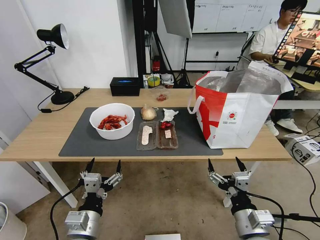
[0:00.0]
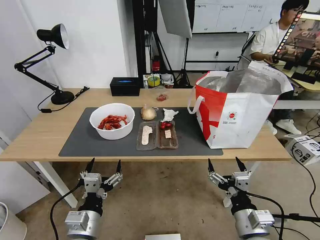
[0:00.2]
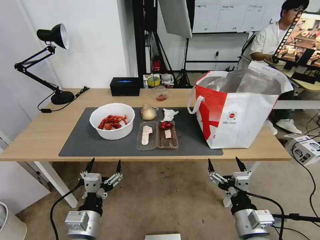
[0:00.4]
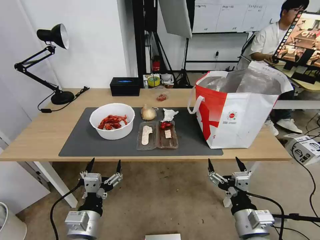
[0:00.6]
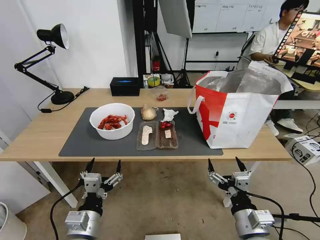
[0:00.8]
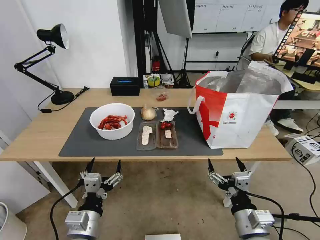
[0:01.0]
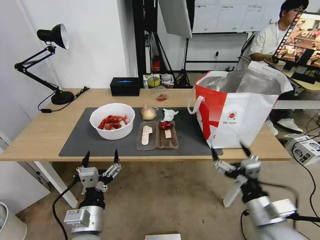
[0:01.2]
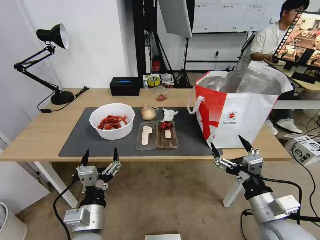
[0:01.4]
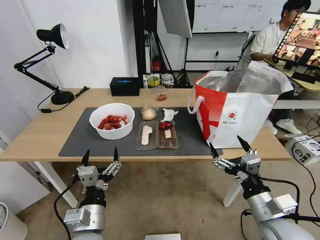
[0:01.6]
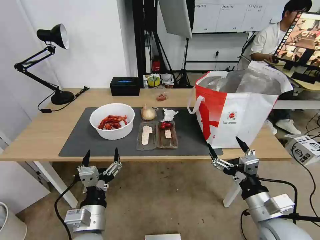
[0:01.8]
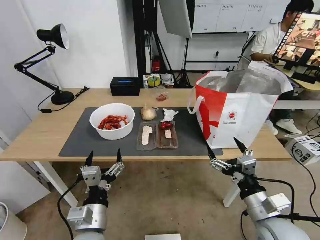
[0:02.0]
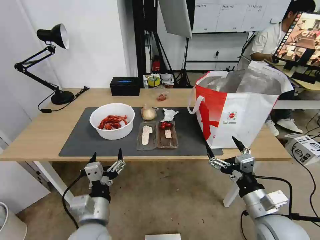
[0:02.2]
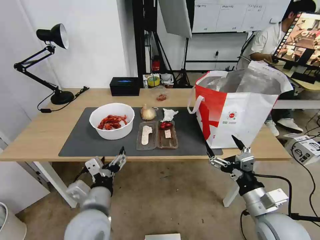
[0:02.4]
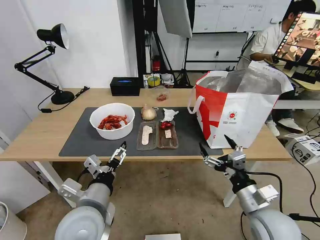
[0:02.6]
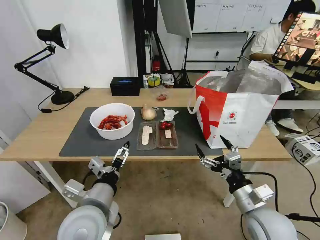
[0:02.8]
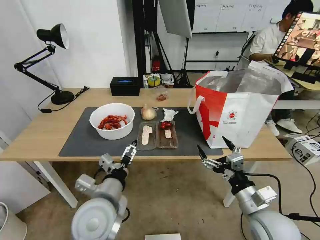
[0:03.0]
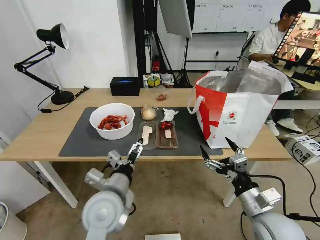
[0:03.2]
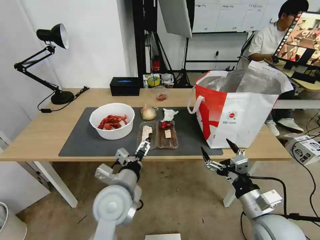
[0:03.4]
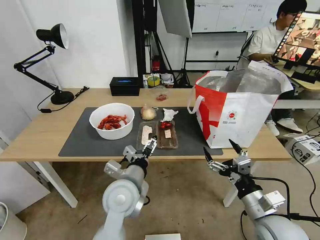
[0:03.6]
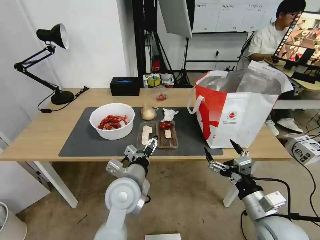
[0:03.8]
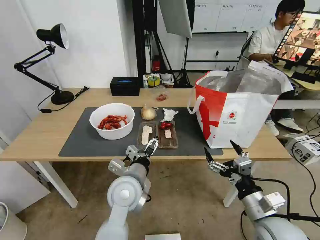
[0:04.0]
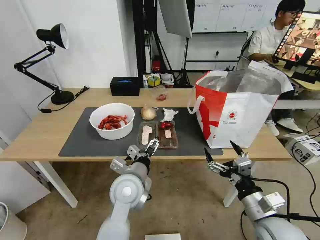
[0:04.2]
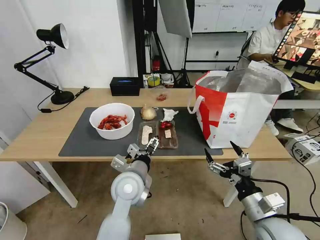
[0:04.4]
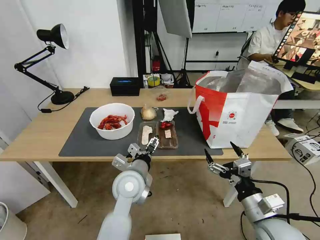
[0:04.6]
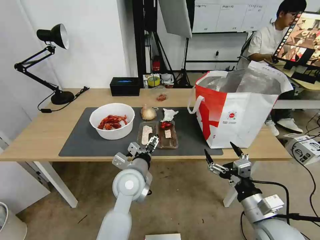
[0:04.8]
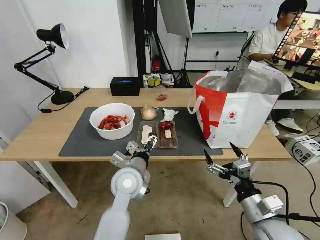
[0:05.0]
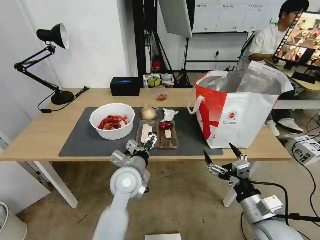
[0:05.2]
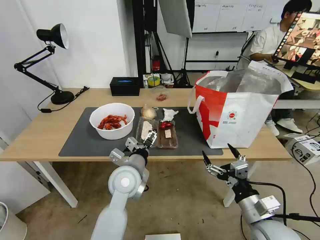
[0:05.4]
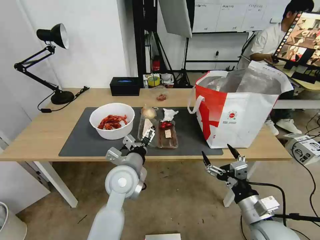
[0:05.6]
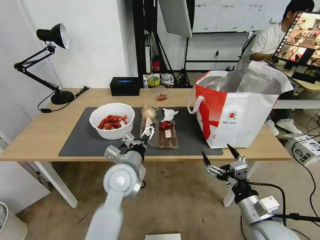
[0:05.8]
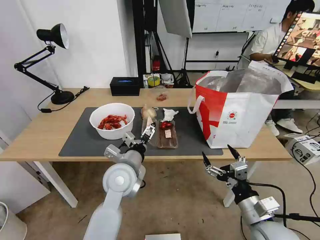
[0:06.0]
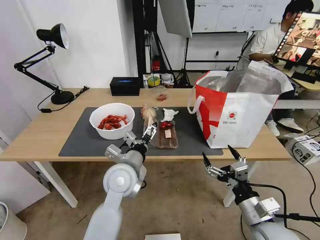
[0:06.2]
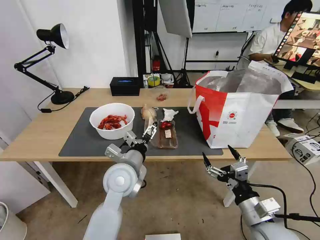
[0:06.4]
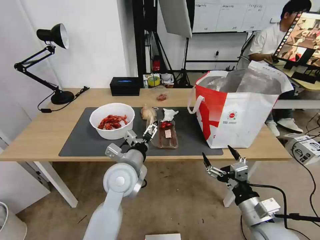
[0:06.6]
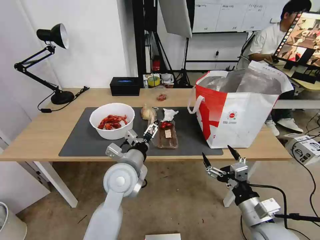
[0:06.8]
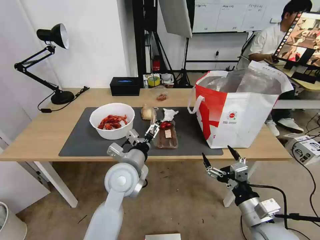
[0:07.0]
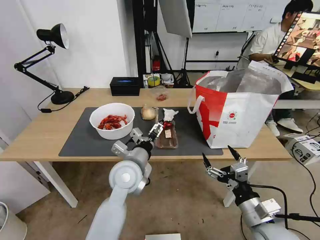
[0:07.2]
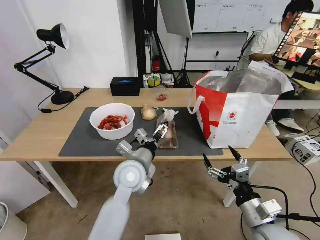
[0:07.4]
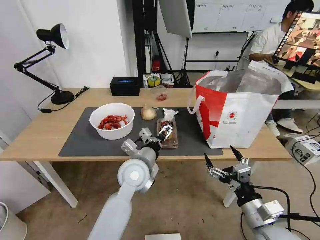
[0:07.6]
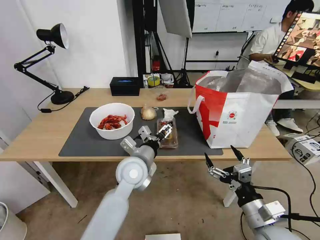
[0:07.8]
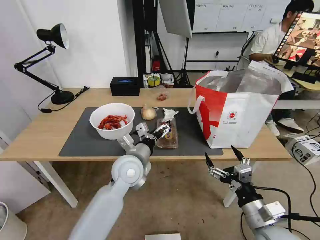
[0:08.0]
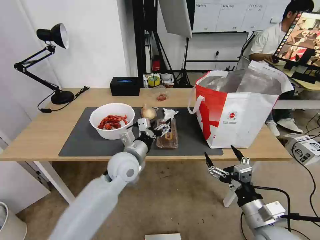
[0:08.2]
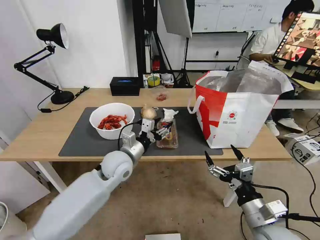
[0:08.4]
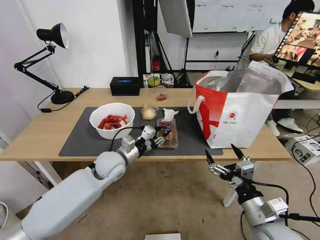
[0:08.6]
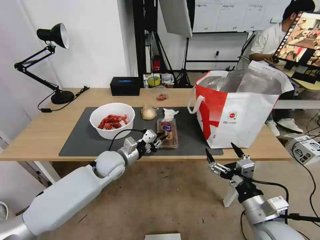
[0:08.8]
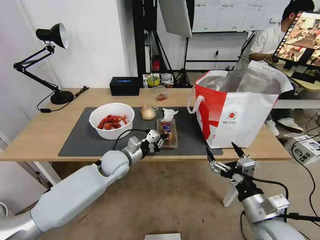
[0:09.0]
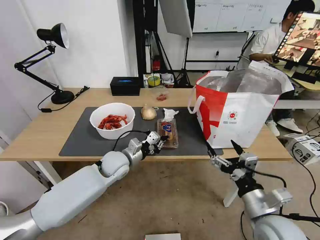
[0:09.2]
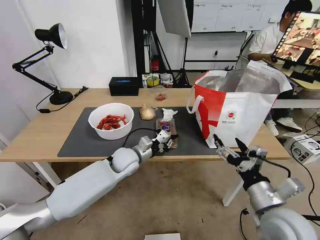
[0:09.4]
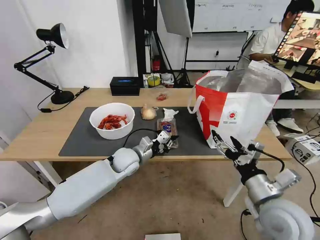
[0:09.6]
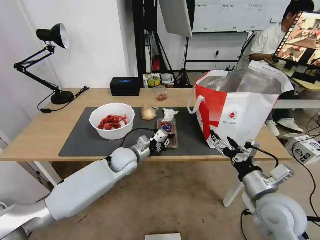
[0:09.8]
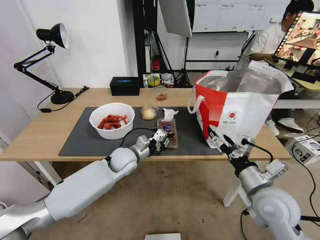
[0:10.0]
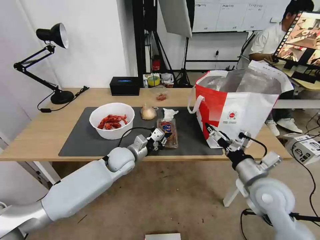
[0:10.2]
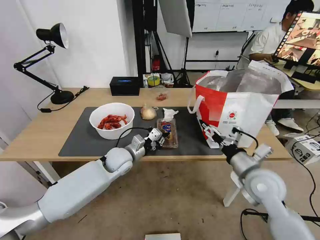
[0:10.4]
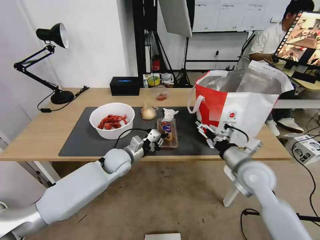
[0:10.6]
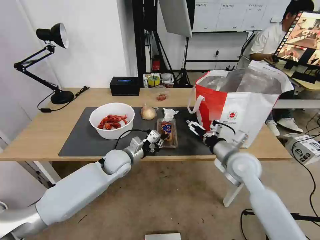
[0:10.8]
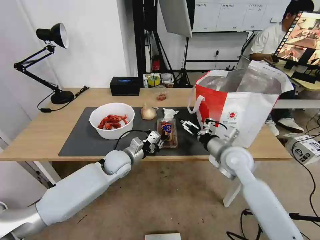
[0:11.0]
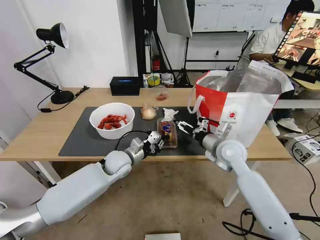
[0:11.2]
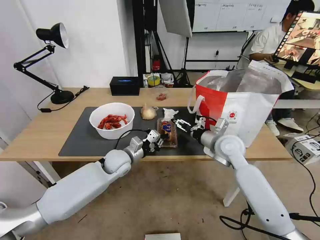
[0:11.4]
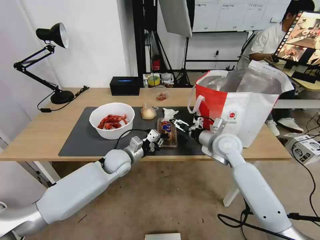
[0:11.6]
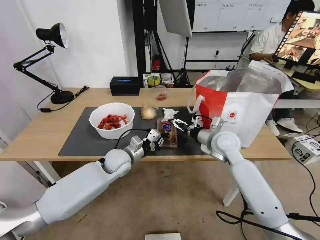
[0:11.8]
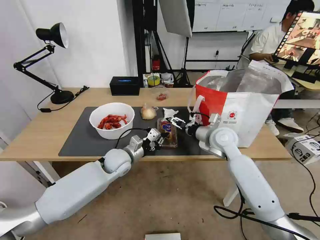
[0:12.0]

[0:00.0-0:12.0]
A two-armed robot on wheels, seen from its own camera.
Task of the whole recording: Pick up the trash from the table and place it into the takeout bag.
0:01.6 to 0:03.0: The left gripper heads upward and forward, covering approximately 10 cm.
0:03.0 to 0:04.4: The left gripper moves forward and to the right, about 10 cm.
0:04.4 to 0:07.6: The grippers stay close to where they were, moving slightly.
0:07.6 to 0:09.0: The left gripper travels to the left, forward and downward by some 10 cm, and closes its fingers.
0:09.0 to 0:10.4: The right gripper moves forward, approximately 10 cm.
0:10.4 to 0:12.0: The right gripper travels forward and to the left by about 20 cm.

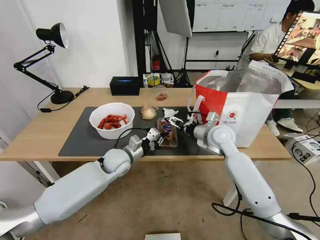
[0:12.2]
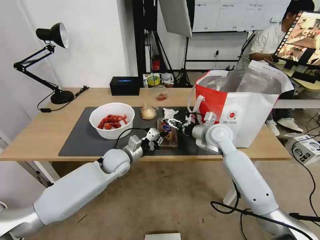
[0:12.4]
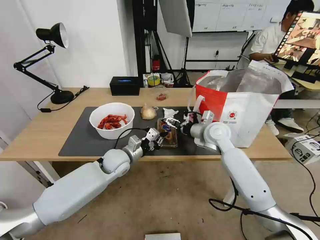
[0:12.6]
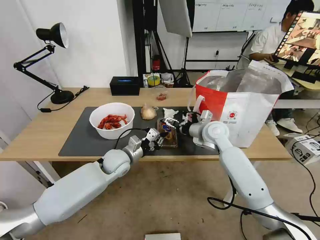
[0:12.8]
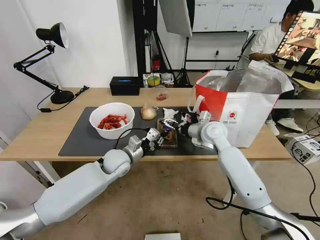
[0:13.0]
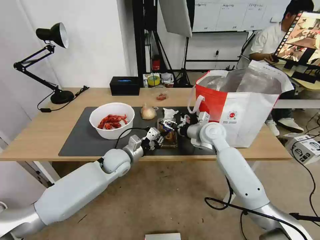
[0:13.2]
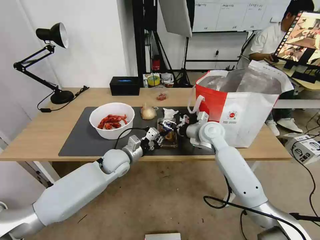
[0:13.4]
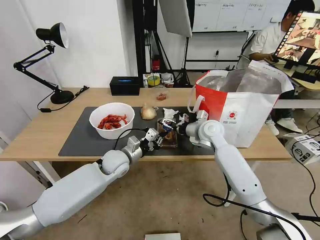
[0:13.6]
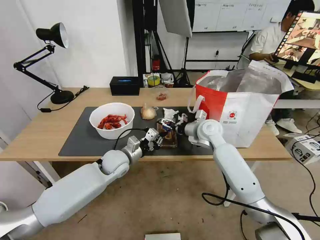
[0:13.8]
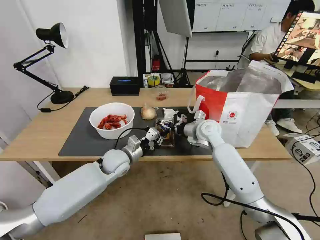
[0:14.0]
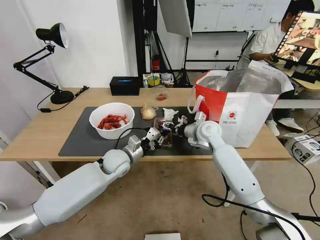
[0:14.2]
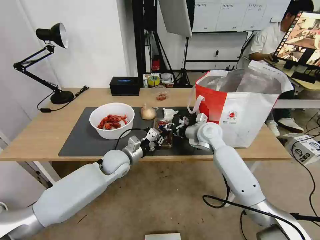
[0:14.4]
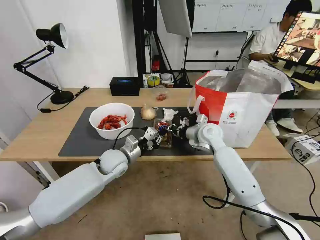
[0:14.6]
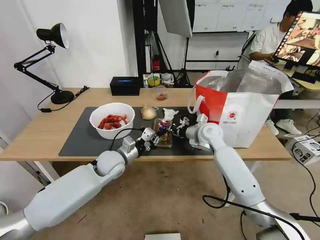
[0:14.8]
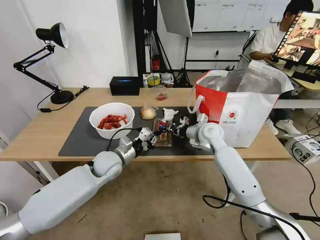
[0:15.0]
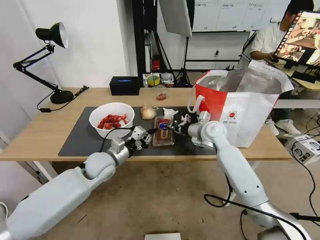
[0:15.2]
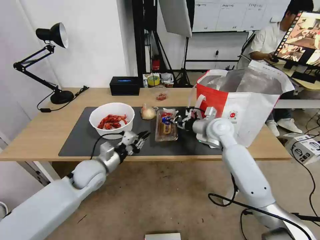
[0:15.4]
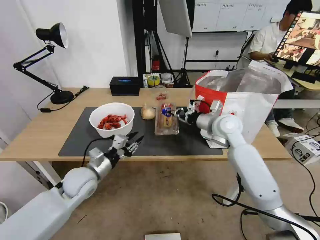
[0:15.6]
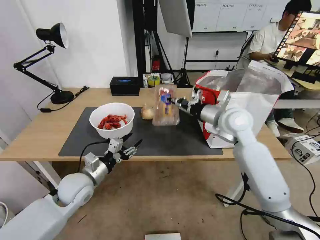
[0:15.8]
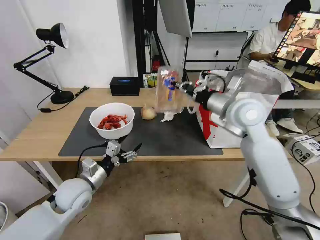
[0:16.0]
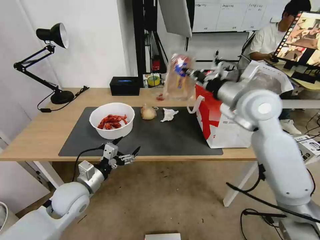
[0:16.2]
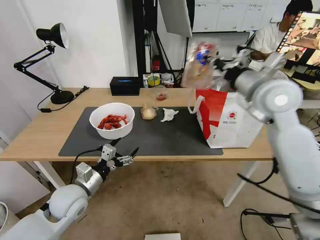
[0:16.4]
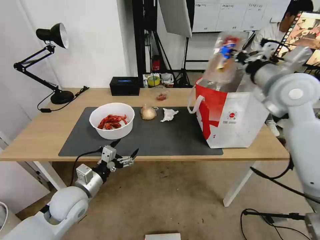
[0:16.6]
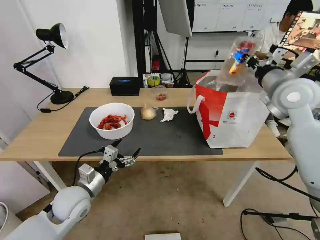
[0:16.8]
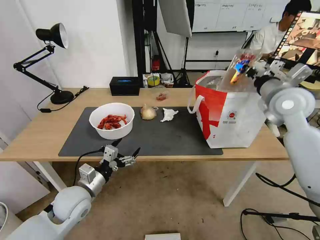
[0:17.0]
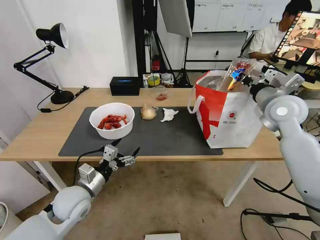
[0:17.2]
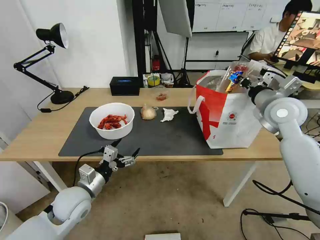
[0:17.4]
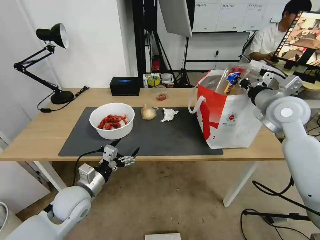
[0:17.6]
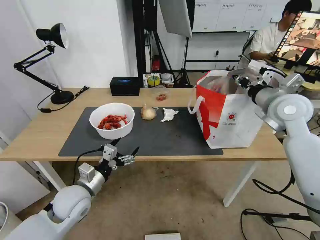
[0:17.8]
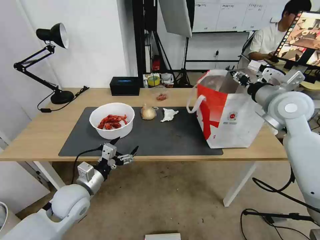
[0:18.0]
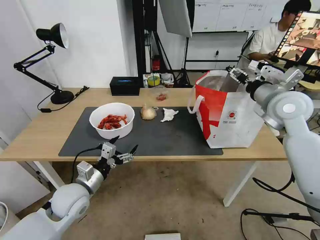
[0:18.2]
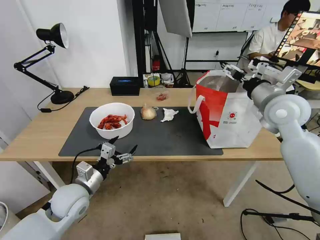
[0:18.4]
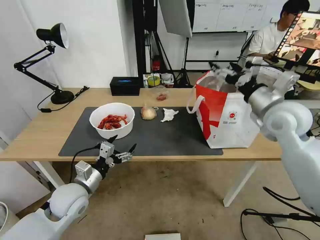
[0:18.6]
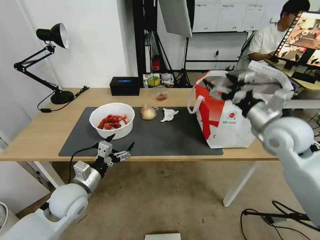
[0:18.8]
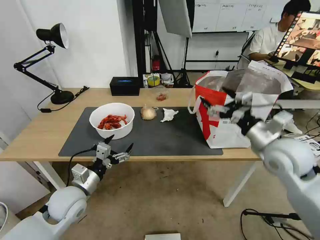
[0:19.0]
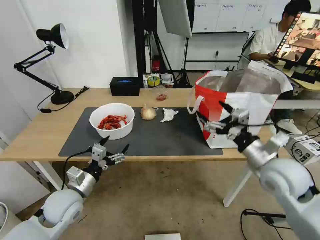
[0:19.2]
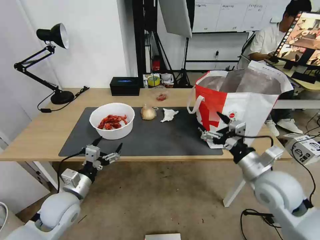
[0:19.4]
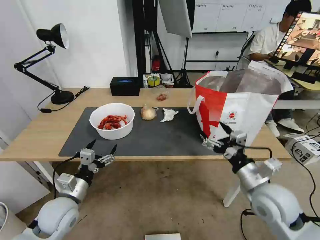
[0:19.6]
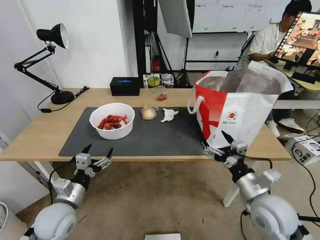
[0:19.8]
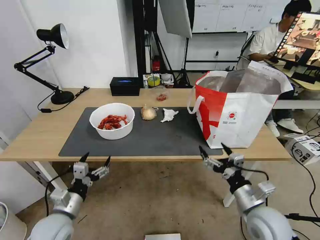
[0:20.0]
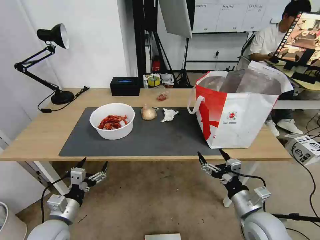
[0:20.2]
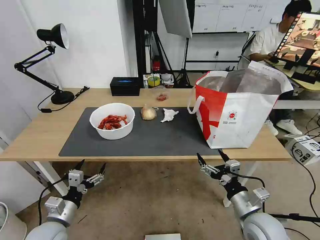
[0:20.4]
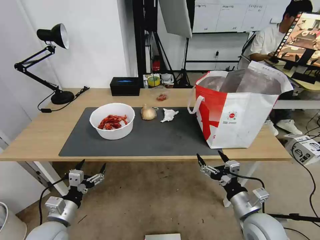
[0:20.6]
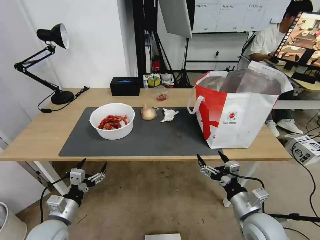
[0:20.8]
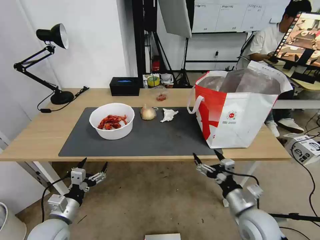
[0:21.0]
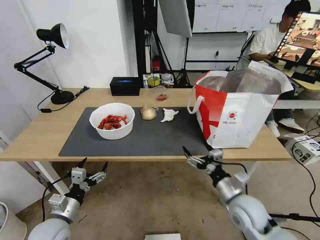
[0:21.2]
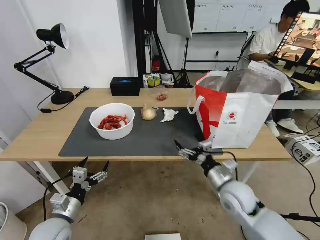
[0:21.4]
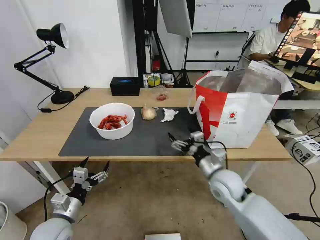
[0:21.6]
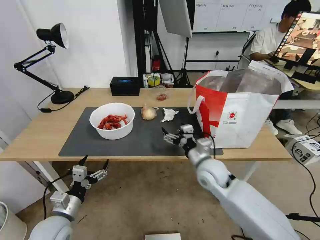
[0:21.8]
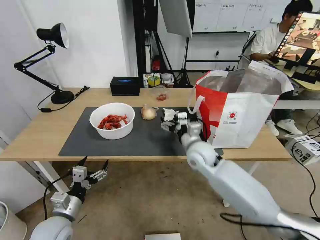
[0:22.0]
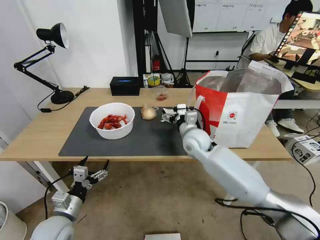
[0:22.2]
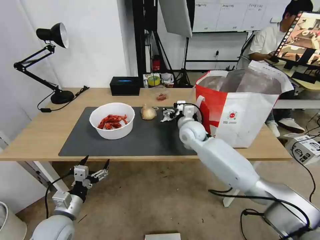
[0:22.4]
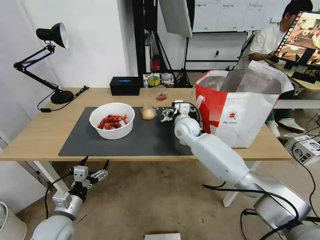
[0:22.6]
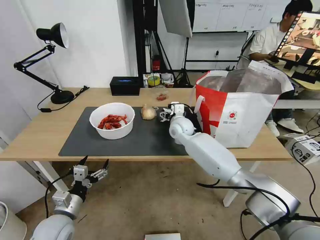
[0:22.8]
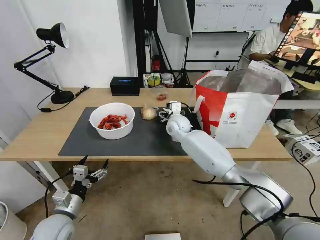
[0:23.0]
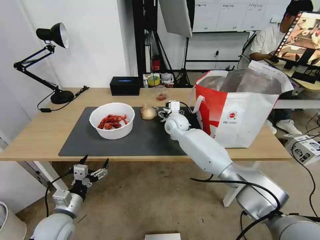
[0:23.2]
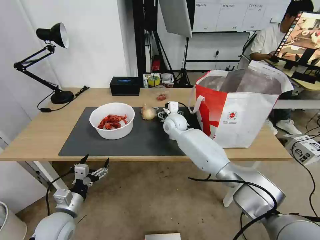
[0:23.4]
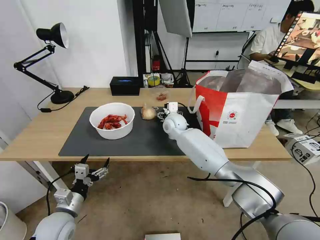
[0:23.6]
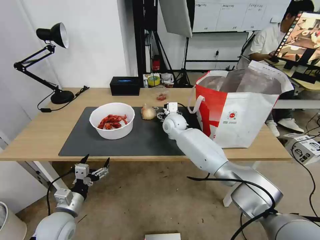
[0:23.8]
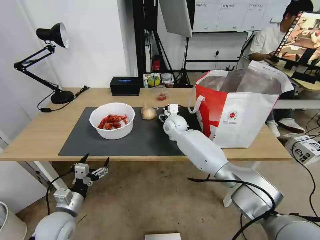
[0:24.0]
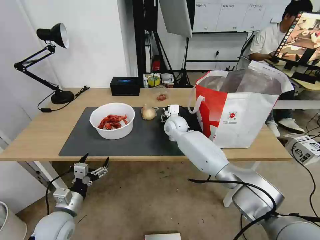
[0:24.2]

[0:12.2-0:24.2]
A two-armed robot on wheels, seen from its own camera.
Task of the whole recording: Pick up the trash from the table and place it into the takeout bag.
0:12.2 to 0:13.8: The grippers stay close to where they were, moving slightly.
0:13.8 to 0:15.2: The left gripper changes place by some 5 cm. The right gripper closes its fingers.
0:15.2 to 0:16.6: The right gripper travels upward and to the right by some 25 cm. The left gripper goes some 15 cm backward and to the left, and opens.
0:16.6 to 0:18.2: The right gripper shifts roughly 5 cm downward, and opens up.
0:18.2 to 0:19.8: The left gripper ends up roughly 5 cm from where it was. Meanwhile the right gripper goes roughly 30 cm backward and downward.
0:19.8 to 0:21.2: The left gripper moves some 5 cm. Meanwhile the right gripper heads downward, covering some 5 cm.
0:21.2 to 0:22.6: The right gripper shifts approximately 30 cm forward and to the left.
0:22.6 to 0:24.2: The right gripper changes place by some 5 cm, and closes up.
